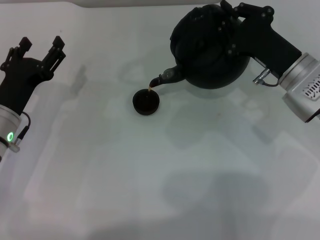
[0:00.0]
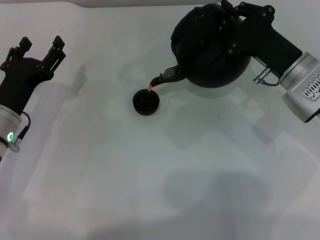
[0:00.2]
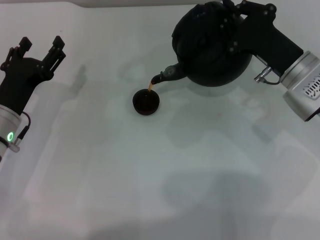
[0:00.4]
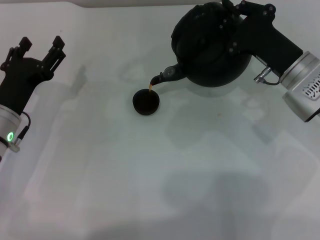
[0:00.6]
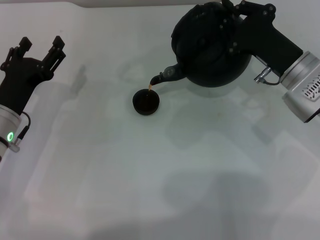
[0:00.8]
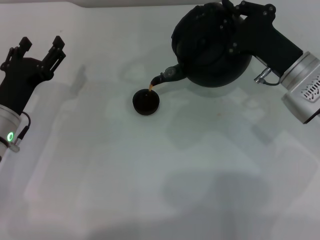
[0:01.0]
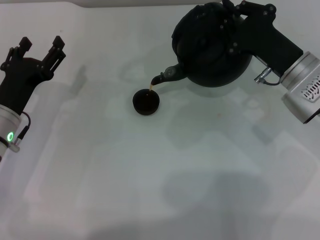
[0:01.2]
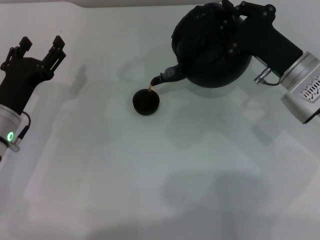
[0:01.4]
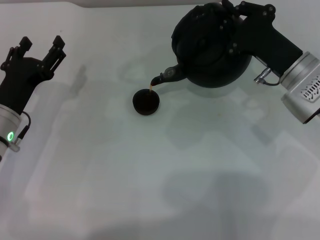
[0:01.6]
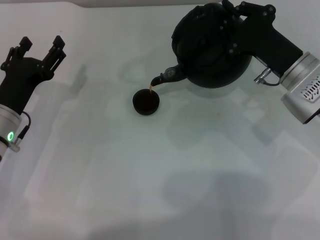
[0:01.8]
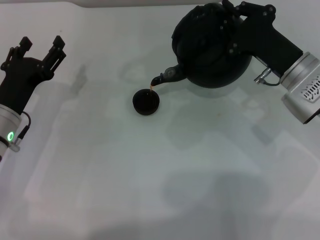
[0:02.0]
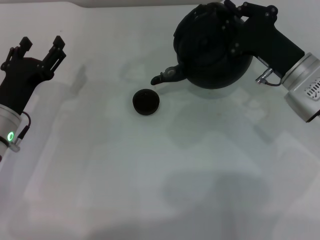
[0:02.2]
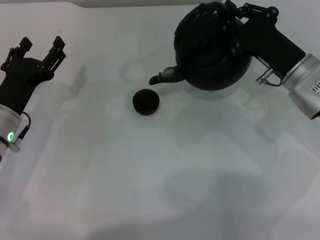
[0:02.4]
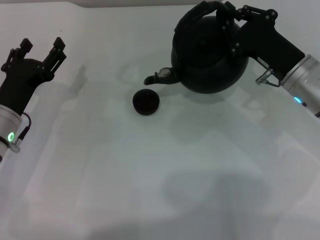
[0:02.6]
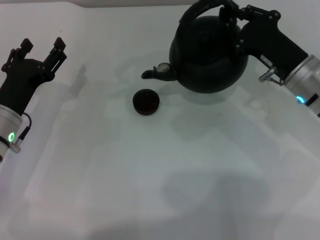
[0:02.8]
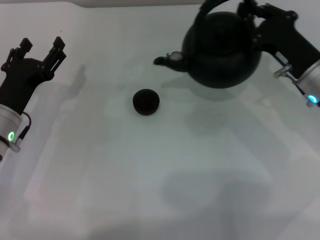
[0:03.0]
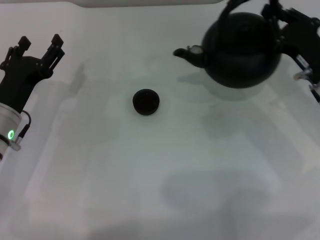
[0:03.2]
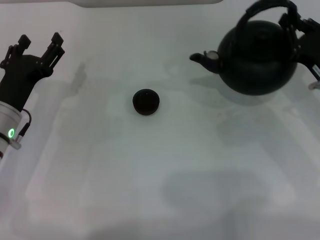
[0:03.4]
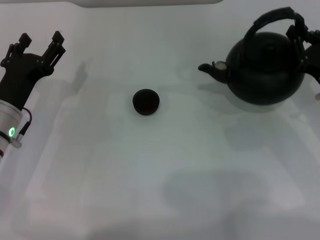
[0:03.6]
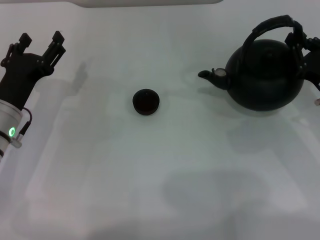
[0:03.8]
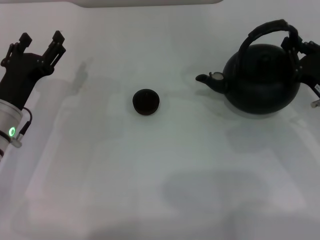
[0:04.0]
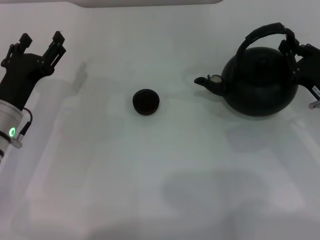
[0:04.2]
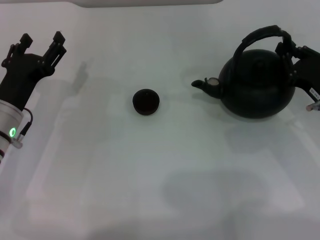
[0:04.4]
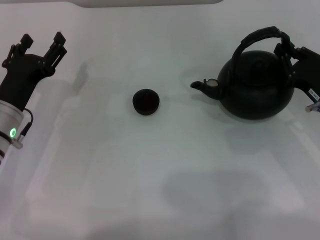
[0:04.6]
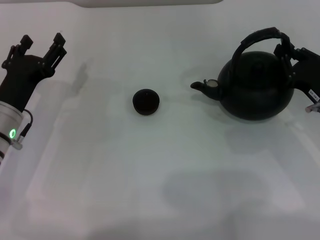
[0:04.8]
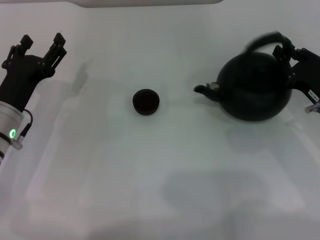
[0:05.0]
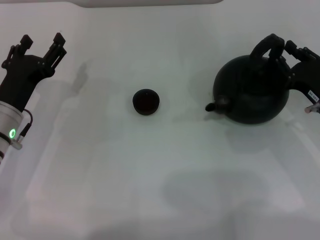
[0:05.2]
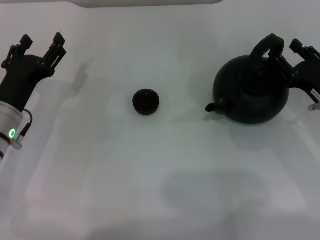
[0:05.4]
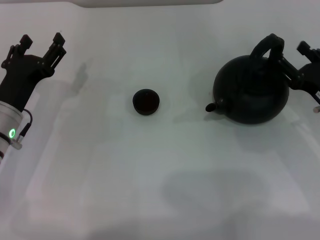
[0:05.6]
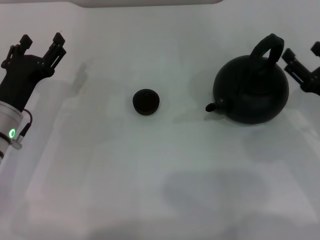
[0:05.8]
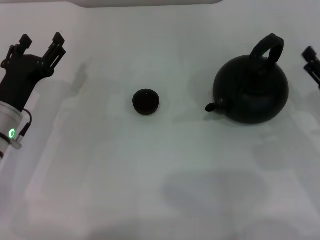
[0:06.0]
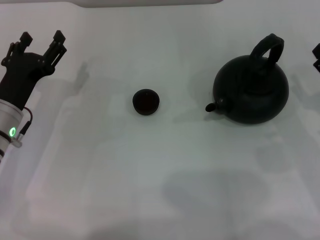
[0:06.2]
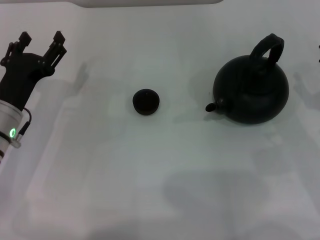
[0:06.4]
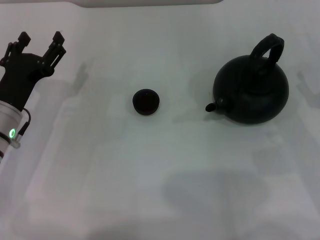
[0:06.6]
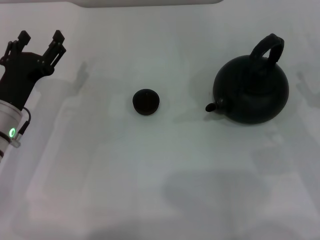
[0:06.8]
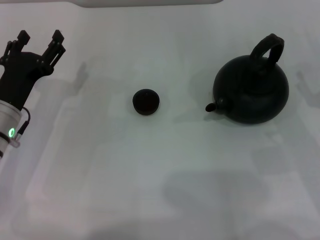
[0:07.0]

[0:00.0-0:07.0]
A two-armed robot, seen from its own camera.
Task of the whole recording: Grasp the handle of the teapot with one hand and pour tea into the teacup.
Step, 0.0 to 2.0 s: Pour tea into the teacup with the right gripper.
Step, 2.2 to 5.6 s: Put down the teapot with the right gripper.
0.0 to 1.4 s: The two grippers keep their place.
2.8 to 4.2 s: The right gripper travels to the right by approximately 5 cm.
4.2 to 5.6 s: The right gripper opens up.
5.6 to 7.0 s: There are only small adjustments of the grippers.

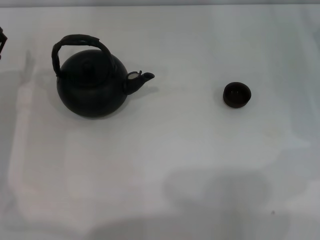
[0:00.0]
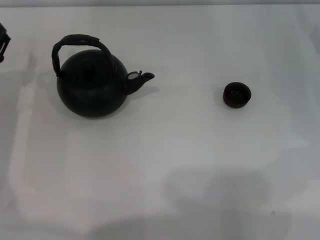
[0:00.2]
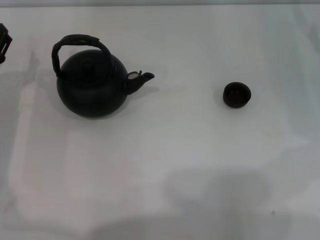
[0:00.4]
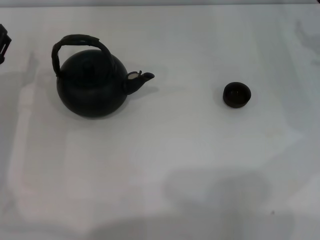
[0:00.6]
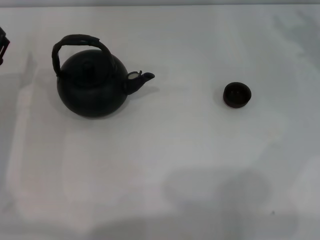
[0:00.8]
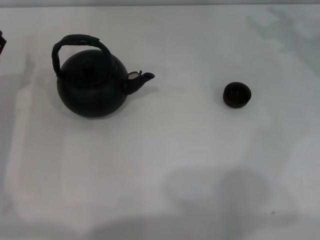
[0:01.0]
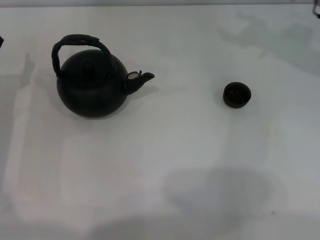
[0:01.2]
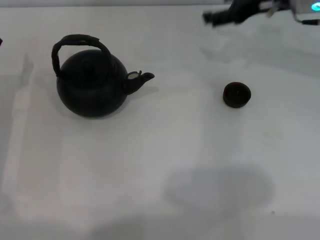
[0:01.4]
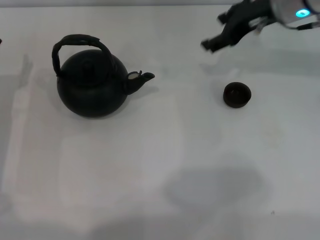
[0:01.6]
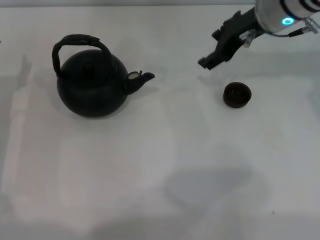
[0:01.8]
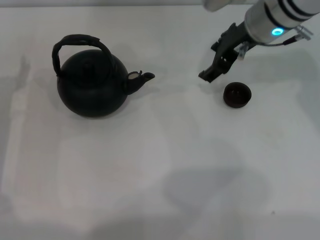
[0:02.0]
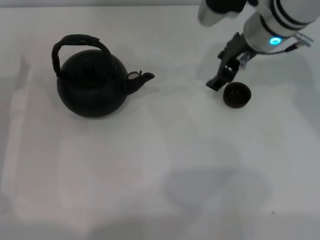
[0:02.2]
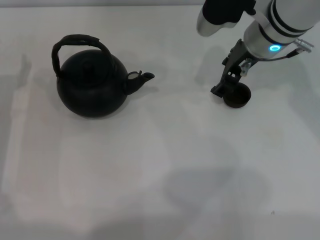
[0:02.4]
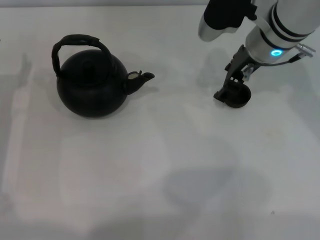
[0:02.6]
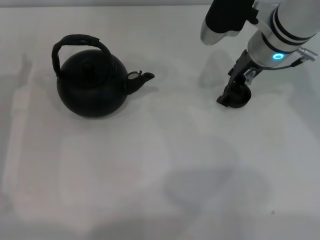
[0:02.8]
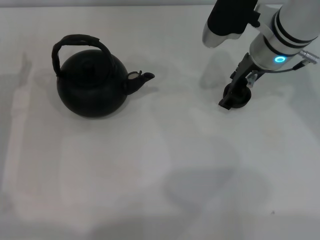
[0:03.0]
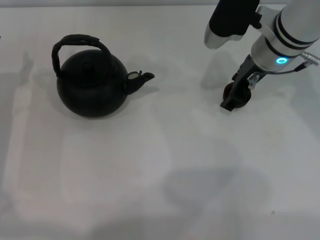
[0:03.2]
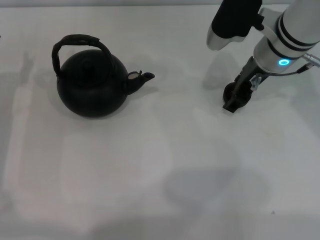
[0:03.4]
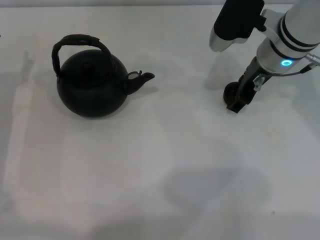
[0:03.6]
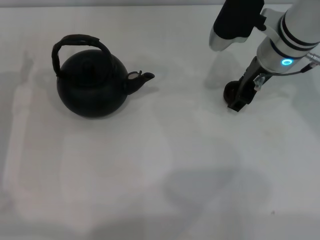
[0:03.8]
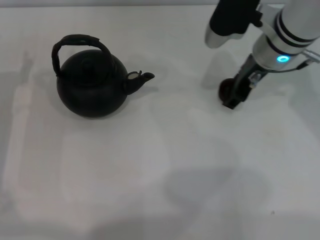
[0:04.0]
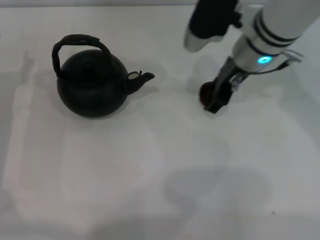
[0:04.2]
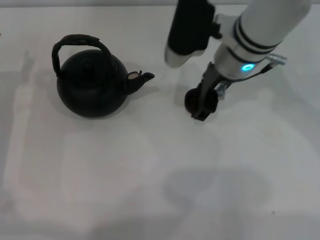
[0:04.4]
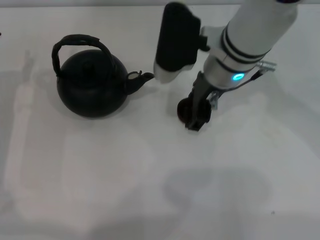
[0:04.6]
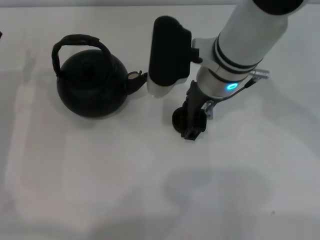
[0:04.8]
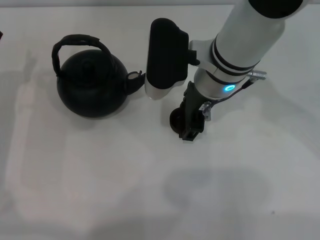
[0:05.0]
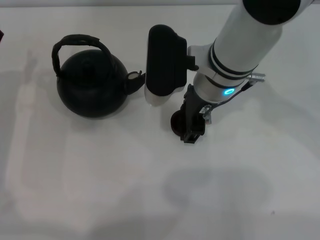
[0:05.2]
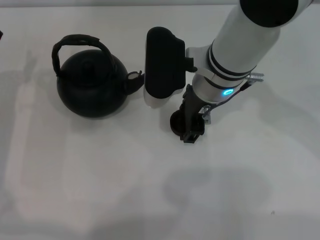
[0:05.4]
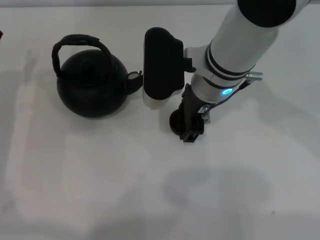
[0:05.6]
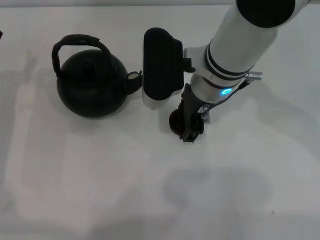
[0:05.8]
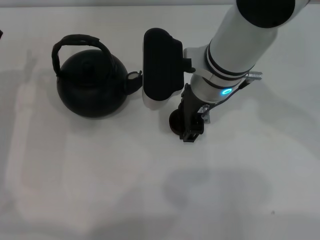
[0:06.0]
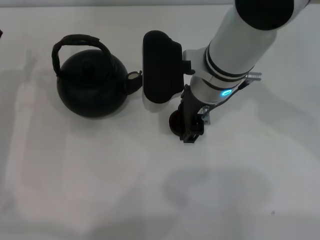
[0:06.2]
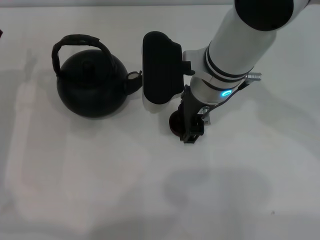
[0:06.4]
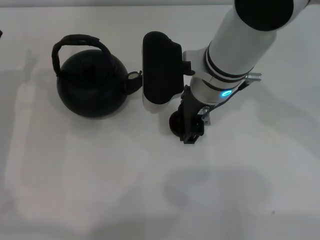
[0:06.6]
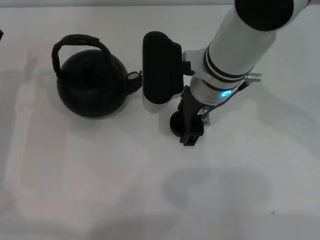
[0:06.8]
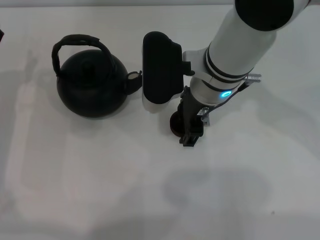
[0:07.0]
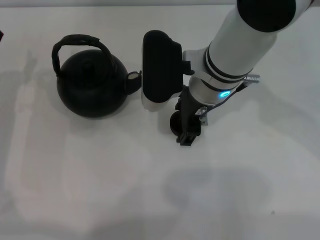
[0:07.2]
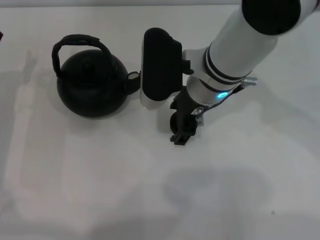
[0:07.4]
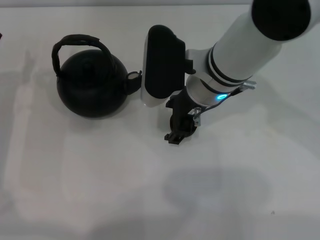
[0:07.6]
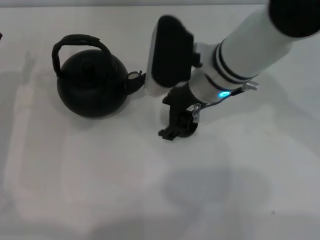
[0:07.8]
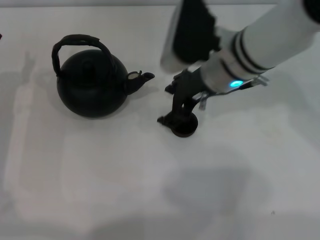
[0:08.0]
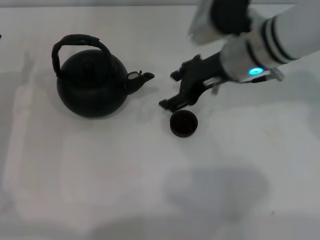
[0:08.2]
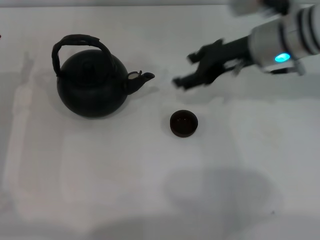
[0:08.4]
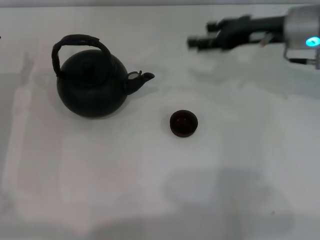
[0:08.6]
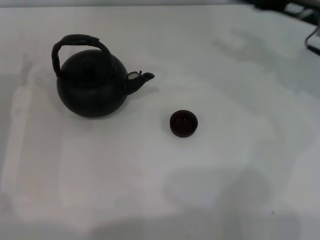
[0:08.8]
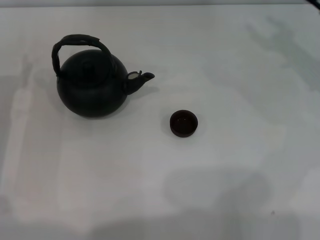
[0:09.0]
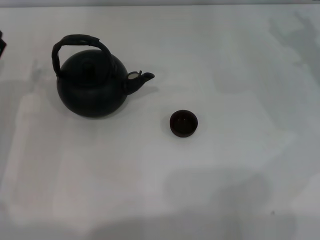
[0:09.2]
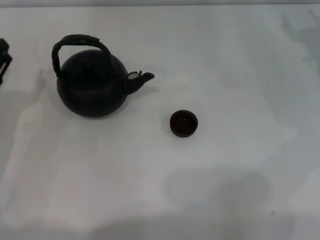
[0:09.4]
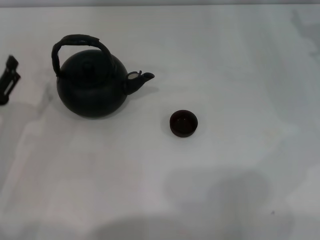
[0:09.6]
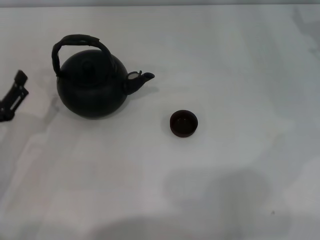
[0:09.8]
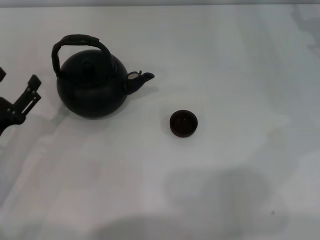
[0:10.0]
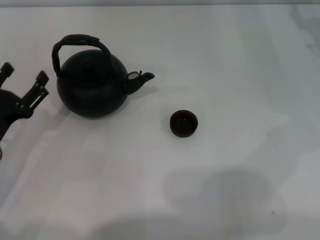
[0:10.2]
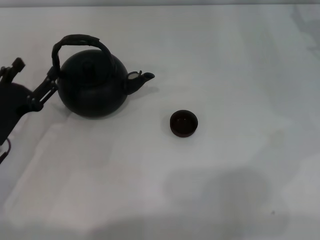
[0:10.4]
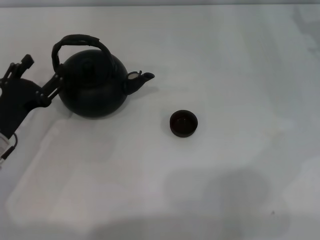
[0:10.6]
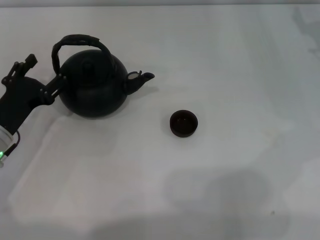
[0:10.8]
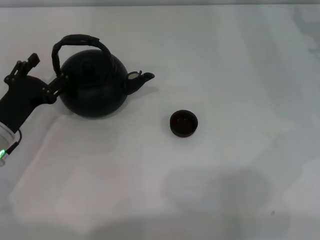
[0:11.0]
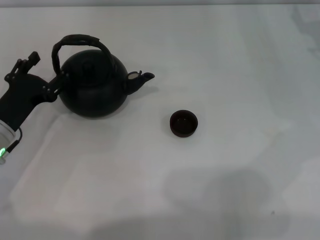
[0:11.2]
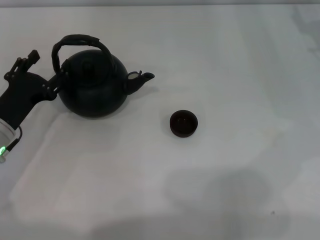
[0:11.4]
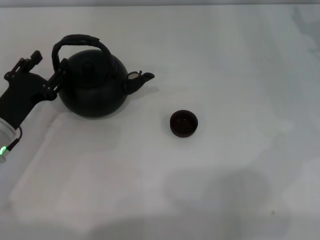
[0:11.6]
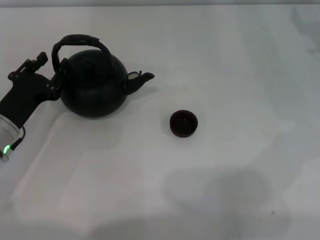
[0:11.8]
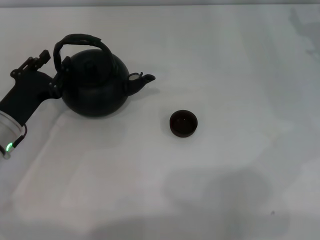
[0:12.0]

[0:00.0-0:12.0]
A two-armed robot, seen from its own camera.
Task of the whole recording: Grasp the handle of the teapot with one hand and pour tea into the teacup.
Step, 0.0 to 3.8 s: Pick up the teacup with the right gripper.
Step, 4.2 to 8.0 s: Place the teacup in the center of view with the right gripper.
0.0 to 1.6 s: The right gripper travels to the left and upward by approximately 20 cm.
1.6 to 3.0 s: The right gripper shifts by approximately 5 cm.
3.0 to 4.4 s: The right gripper goes roughly 5 cm to the left.
4.4 to 7.6 s: The grippers move only a little.
7.6 to 9.0 s: The right gripper shifts roughly 25 cm to the right.
9.0 to 10.4 s: The left gripper ends up roughly 5 cm from where it was.
10.4 to 12.0 s: The left gripper closes up.

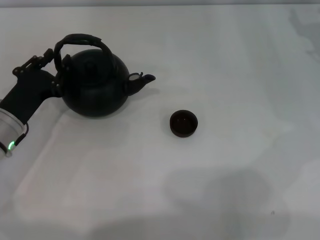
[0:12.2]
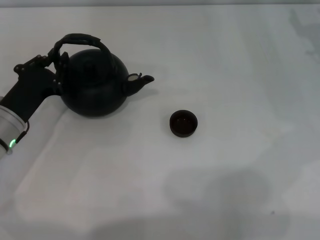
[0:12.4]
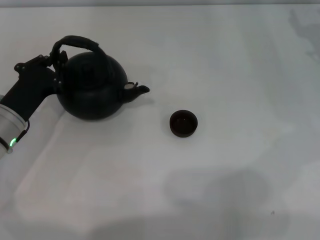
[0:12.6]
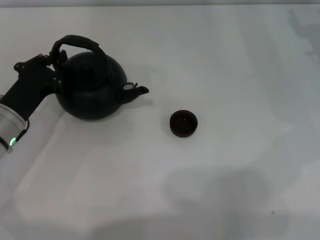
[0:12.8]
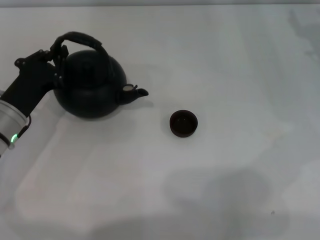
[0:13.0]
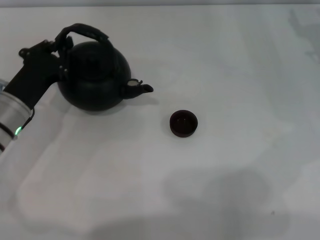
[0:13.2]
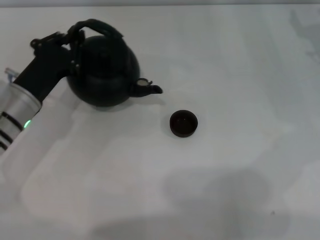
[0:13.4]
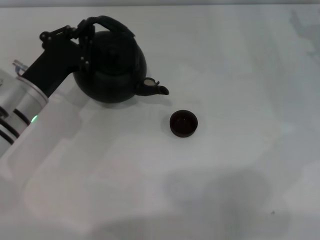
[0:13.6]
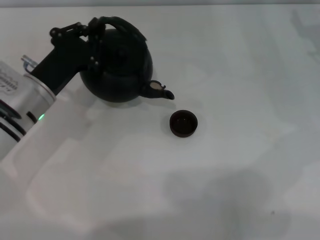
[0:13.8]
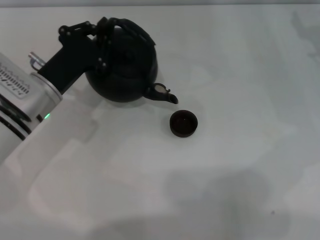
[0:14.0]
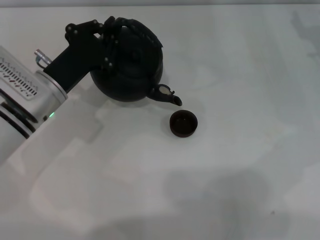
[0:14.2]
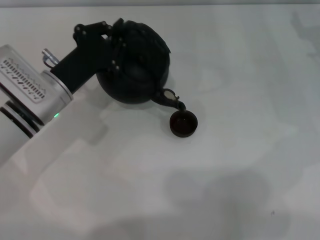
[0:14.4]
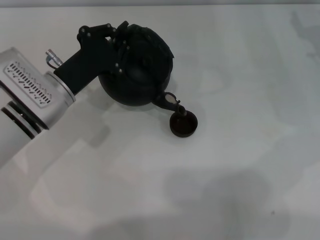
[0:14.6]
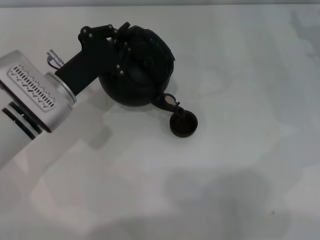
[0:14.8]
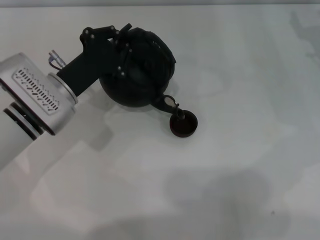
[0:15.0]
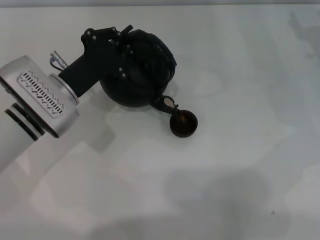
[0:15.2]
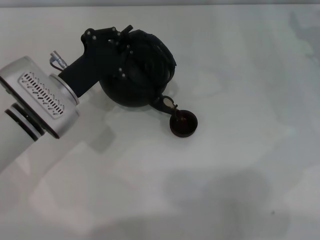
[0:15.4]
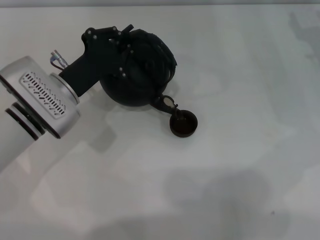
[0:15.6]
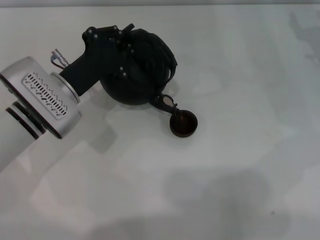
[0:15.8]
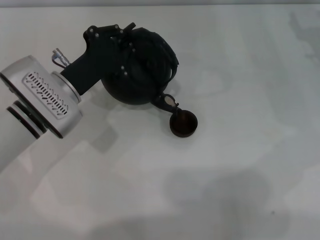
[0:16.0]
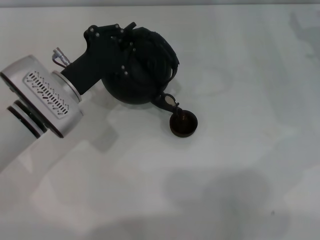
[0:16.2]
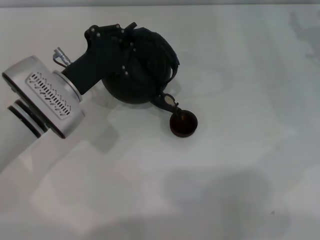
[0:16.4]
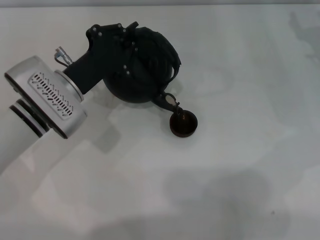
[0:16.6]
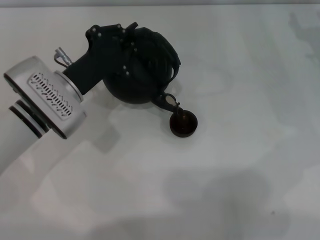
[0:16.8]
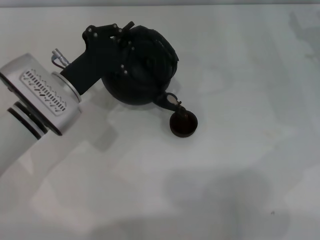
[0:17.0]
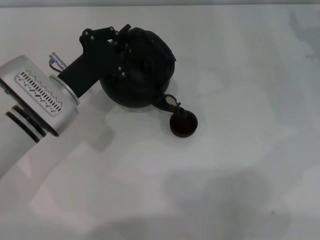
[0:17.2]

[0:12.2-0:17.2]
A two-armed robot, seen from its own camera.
Task of the whole recording: Grasp the handle of the teapot with one hand and pour tea into the teacup.
12.2 to 13.8 s: The left gripper ends up roughly 5 cm from where it was, and closes up.
15.6 to 17.2 s: The two grippers keep their place.
